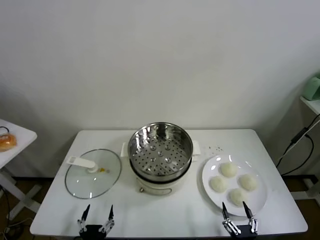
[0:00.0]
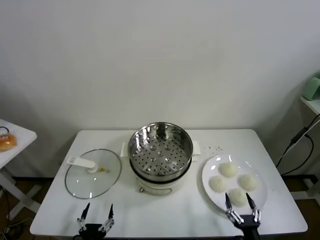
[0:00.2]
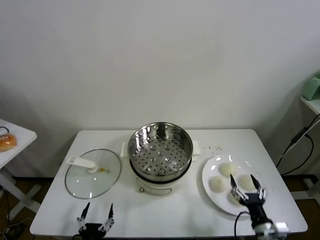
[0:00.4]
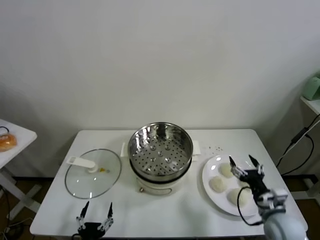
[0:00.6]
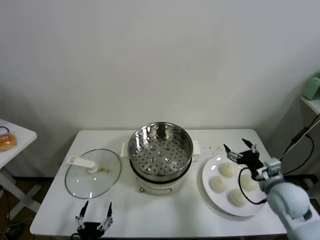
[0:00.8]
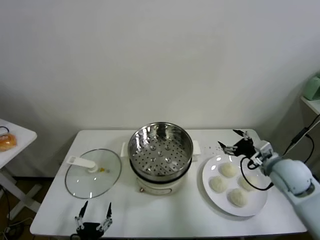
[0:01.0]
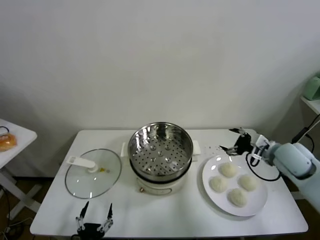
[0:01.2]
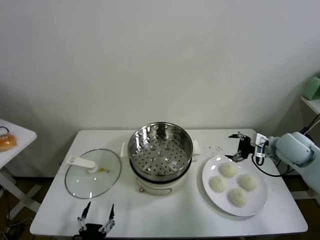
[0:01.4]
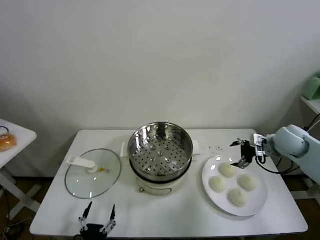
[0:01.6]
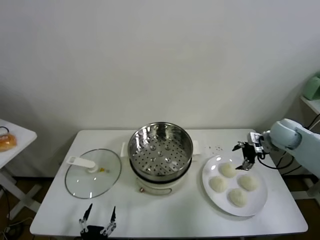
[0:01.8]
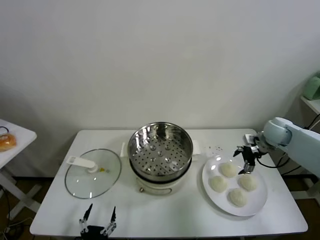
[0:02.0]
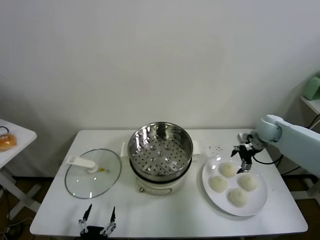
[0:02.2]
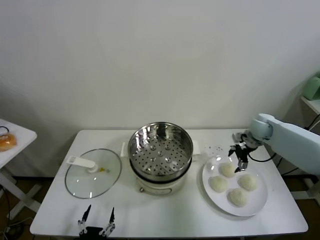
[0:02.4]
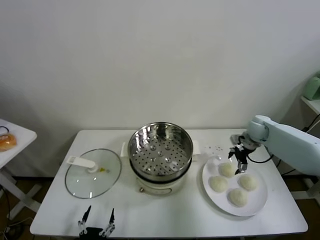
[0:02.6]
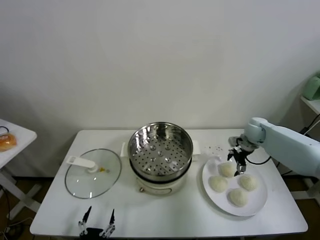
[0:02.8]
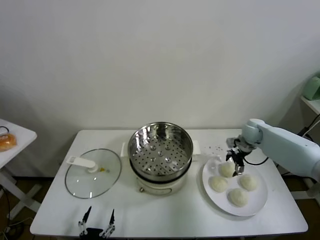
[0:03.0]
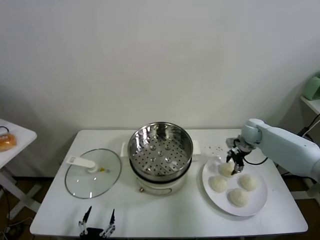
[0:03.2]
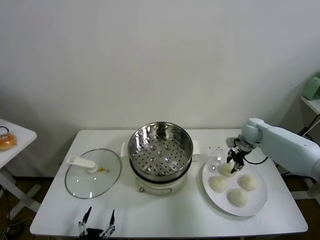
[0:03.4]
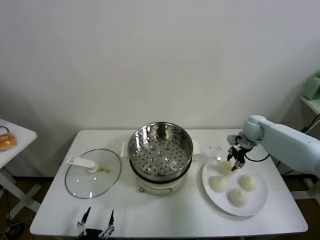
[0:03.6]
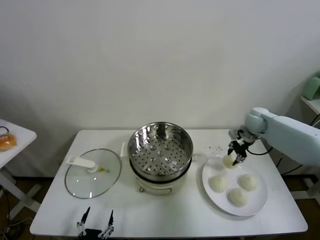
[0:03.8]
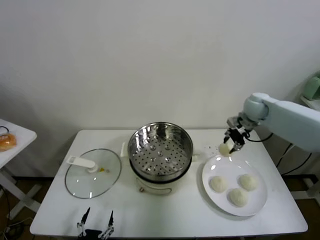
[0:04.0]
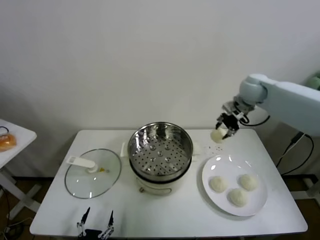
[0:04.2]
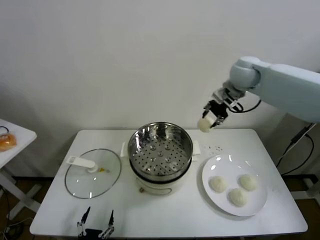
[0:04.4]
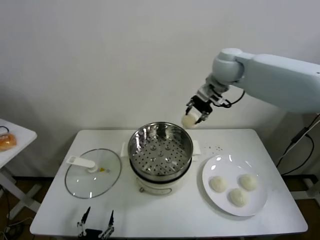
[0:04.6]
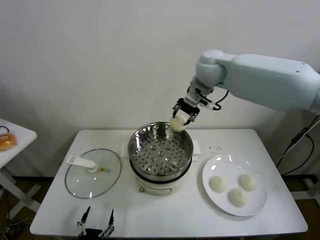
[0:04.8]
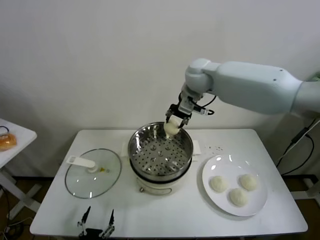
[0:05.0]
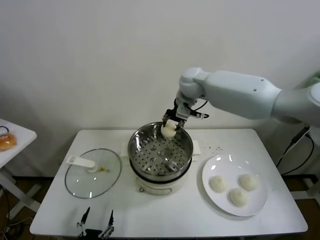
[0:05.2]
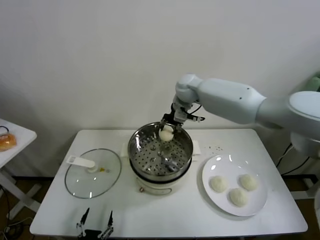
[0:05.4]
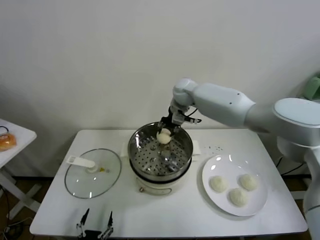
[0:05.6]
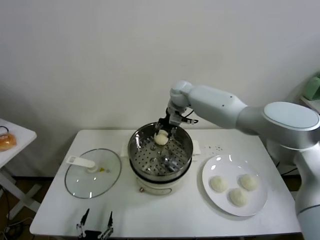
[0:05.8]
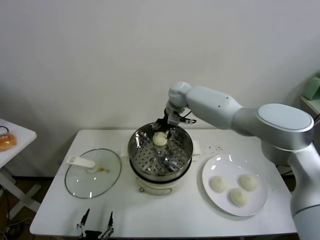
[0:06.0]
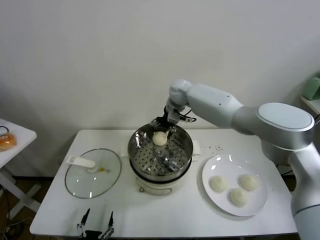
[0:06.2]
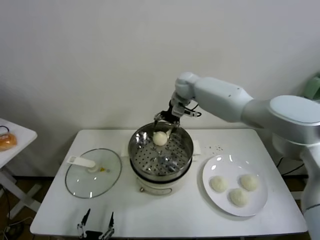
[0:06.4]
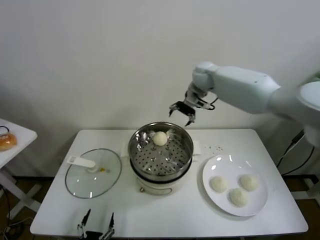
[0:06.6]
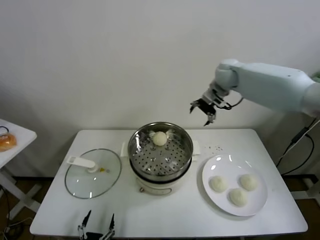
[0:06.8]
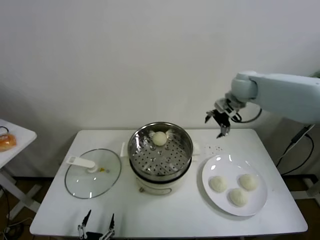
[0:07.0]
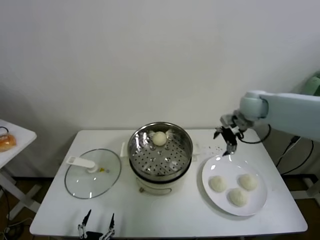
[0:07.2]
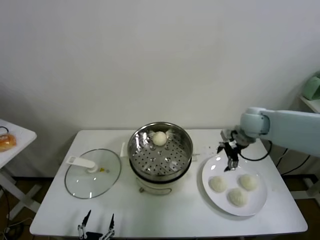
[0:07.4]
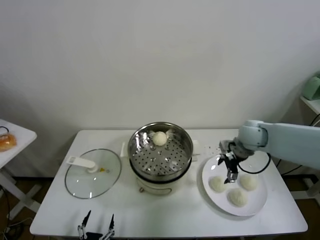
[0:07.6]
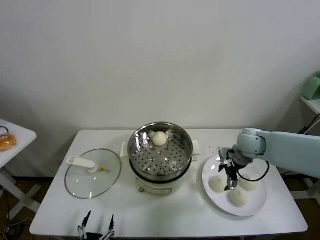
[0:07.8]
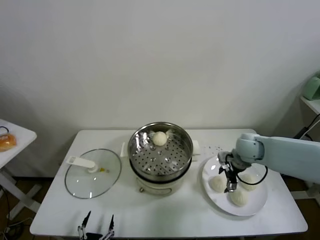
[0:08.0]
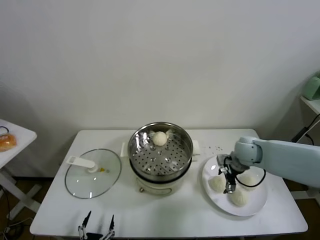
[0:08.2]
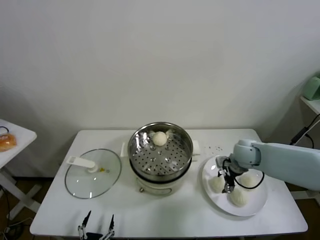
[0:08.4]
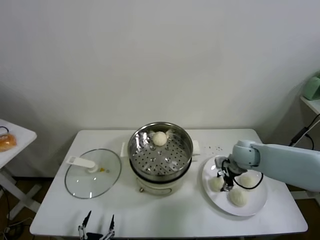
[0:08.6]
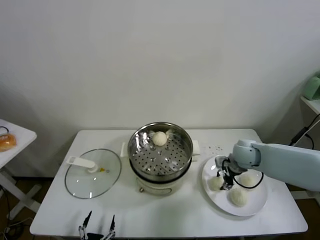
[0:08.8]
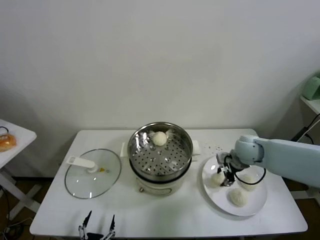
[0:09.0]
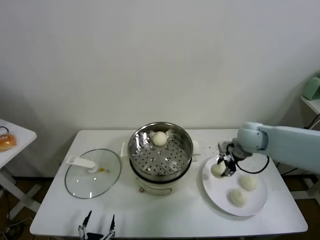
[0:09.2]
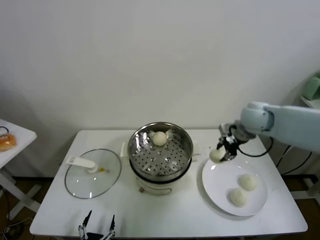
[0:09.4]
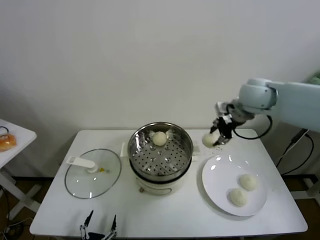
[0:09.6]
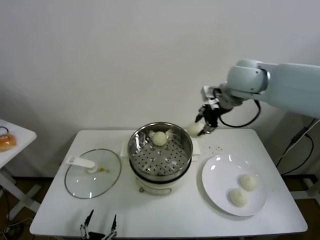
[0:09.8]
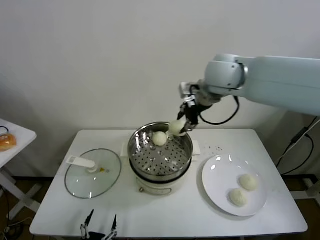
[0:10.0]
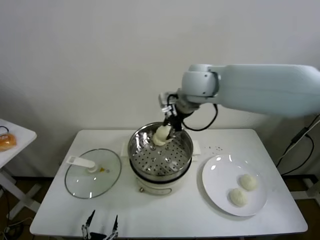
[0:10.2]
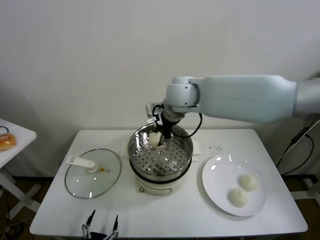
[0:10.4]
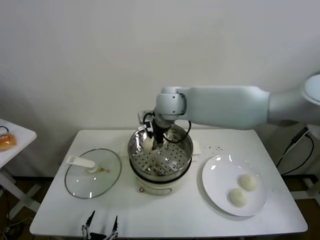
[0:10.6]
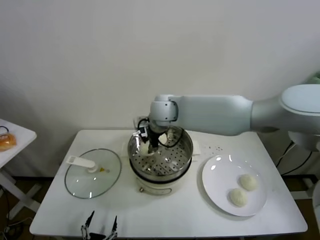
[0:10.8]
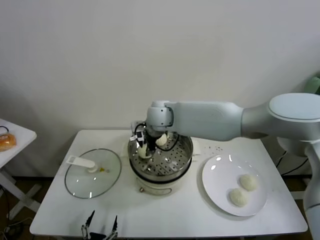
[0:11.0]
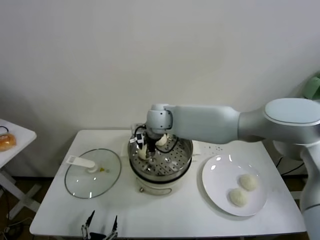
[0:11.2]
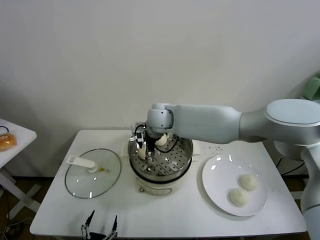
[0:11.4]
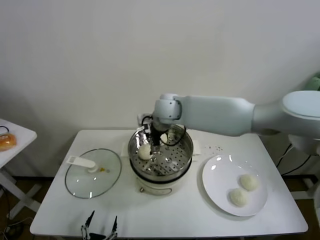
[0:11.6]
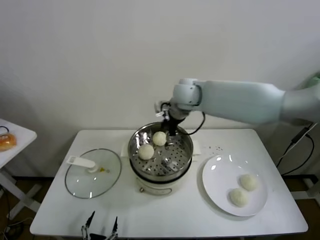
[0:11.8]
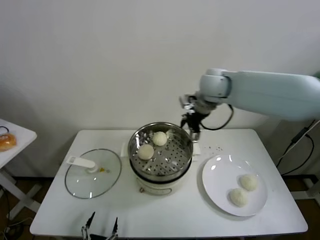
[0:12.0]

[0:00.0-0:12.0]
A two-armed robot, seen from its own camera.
Task of the whole recording: take steamed baozi put them in steamer.
Step, 0:00.0 to 0:03.2: Grasp the baozi in the plate with right gripper.
Step, 0:03.4 to 0:06.2: Place the baozi on the steamer with right gripper.
Step, 0:06.4 to 0:08.6: Grasp the baozi in the plate with right gripper.
Step, 0:08.8 to 0:11.4: Place the baozi on the steamer with right gripper.
0:01.6 to 0:03.0: The right gripper goes approximately 10 cm forward and downward.
0:03.0 to 0:04.4: The right gripper shifts about 30 cm upward and to the left, and closes up.
0:04.4 to 0:06.0: The right gripper travels to the left, downward and forward by approximately 20 cm, and opens.
0:06.0 to 0:07.6: The right gripper moves to the right and backward, roughly 30 cm.
0:07.6 to 0:09.0: The right gripper closes its fingers.
0:09.0 to 0:10.4: The right gripper heads to the left and upward, covering some 30 cm.
0:10.4 to 0:12.0: The right gripper moves to the right, some 10 cm, and opens.

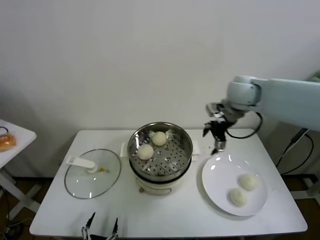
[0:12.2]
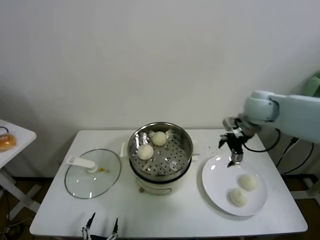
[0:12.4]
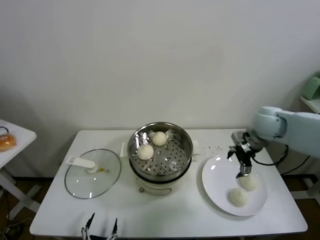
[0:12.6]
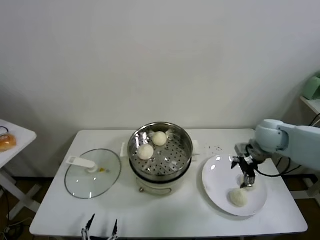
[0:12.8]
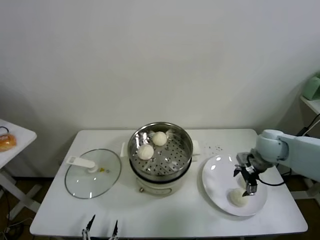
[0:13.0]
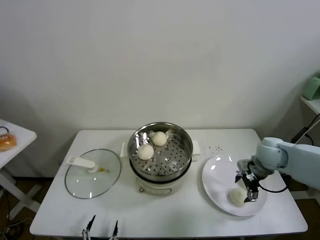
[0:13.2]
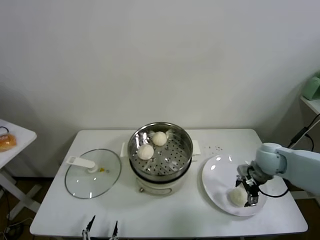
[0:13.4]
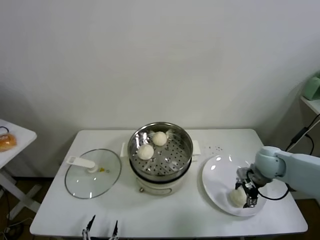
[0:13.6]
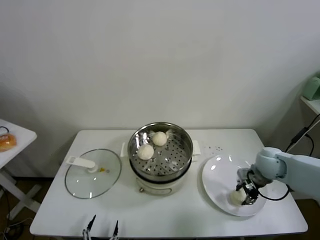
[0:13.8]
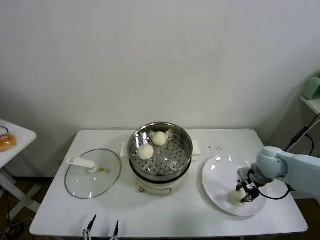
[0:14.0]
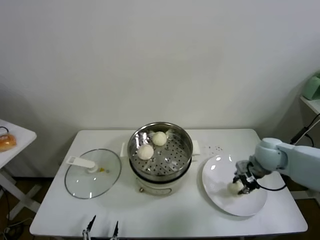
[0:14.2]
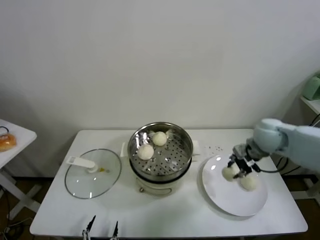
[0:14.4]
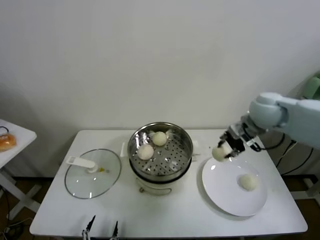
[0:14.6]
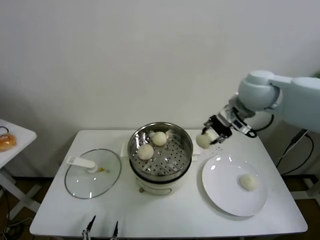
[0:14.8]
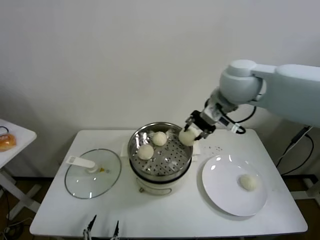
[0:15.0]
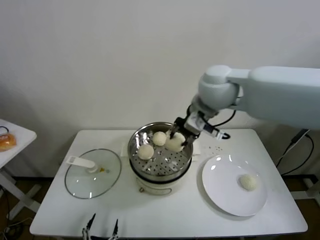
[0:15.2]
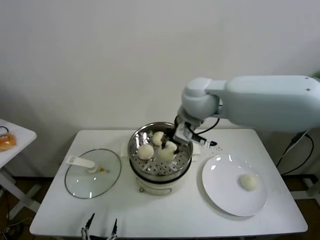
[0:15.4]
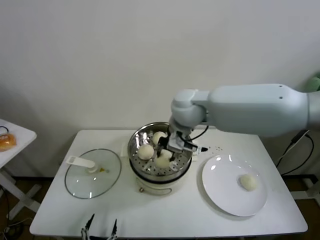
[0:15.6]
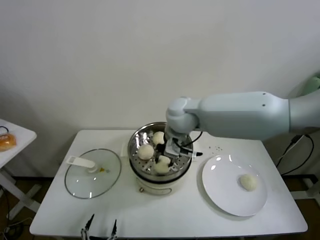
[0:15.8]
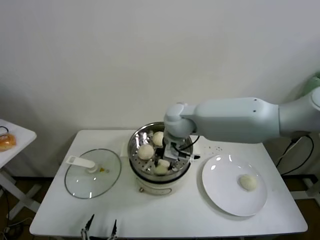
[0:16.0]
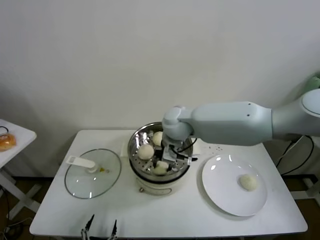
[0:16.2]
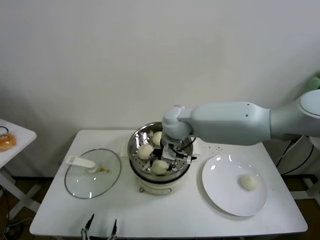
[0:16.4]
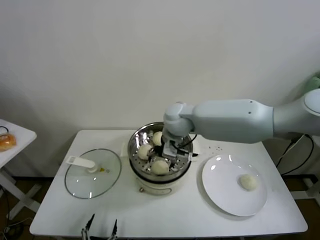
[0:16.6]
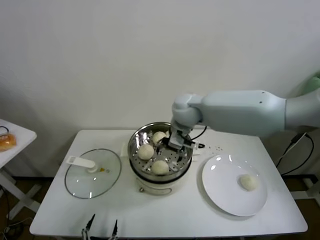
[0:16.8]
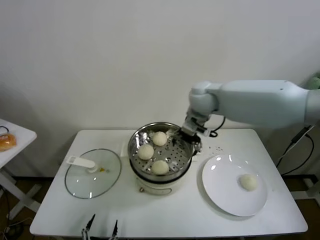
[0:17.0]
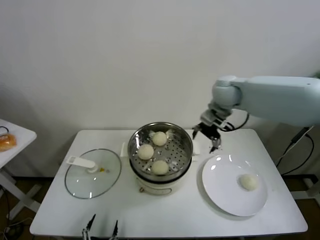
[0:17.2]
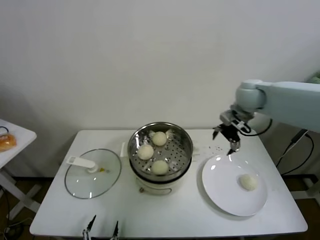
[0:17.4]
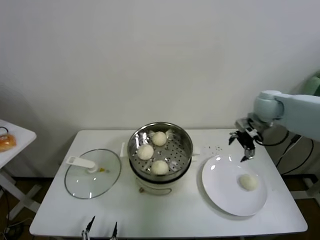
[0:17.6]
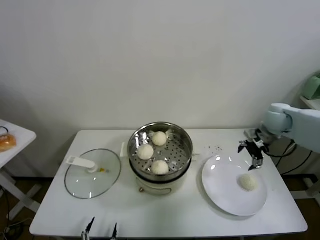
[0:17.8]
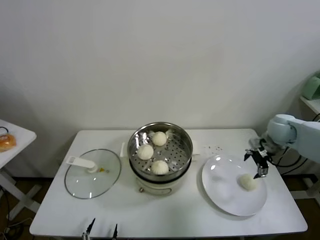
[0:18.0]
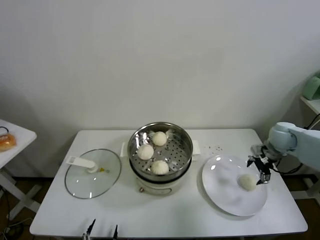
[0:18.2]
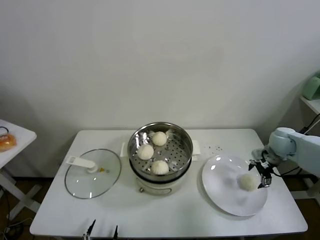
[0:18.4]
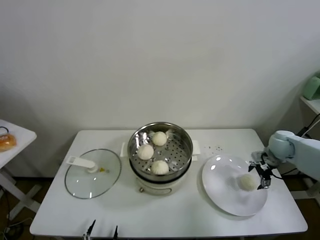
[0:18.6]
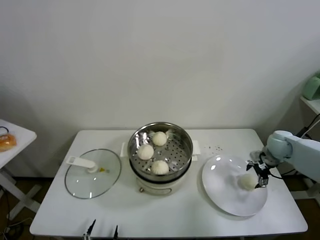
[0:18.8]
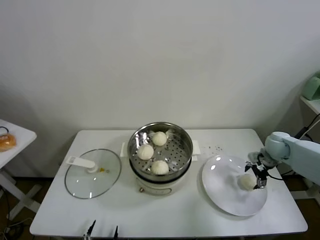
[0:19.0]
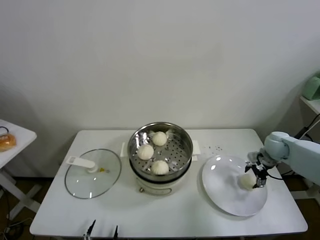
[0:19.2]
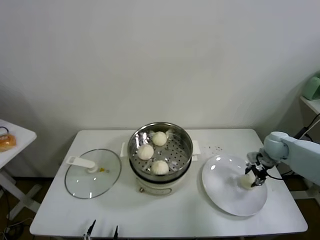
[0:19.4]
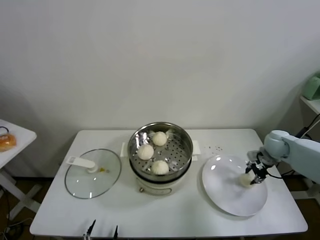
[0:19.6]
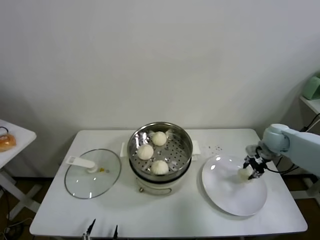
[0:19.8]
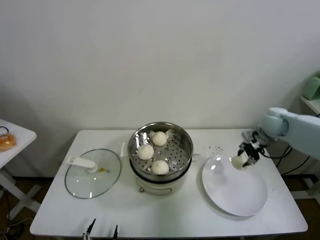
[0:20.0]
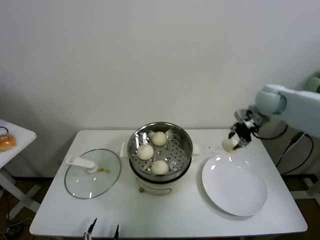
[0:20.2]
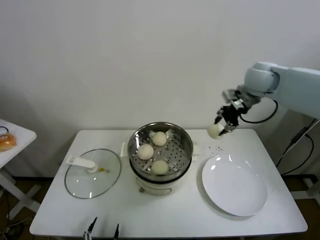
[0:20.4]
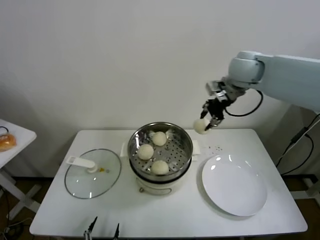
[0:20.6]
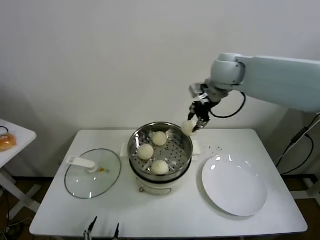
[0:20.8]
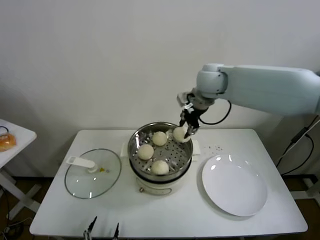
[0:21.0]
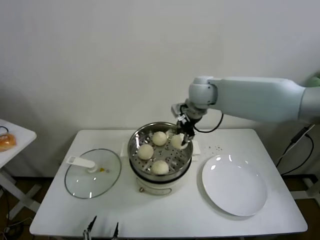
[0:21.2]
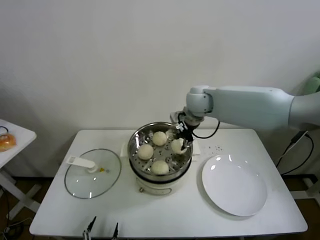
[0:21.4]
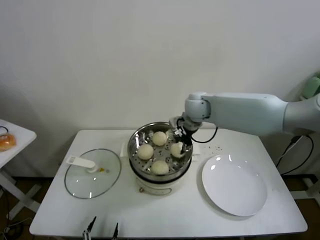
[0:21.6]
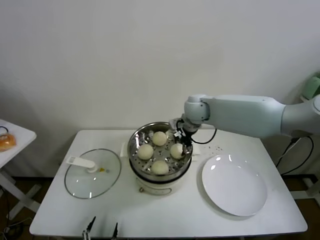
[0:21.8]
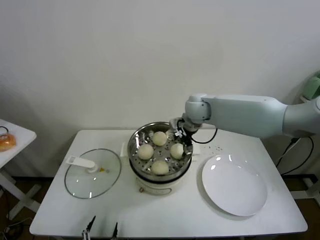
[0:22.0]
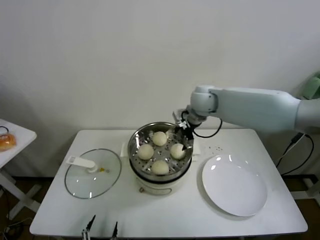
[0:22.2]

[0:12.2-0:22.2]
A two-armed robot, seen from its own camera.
Task of the whole recording: take steamed baozi put them in steamer.
Step, 0:12.2 to 0:13.8: Grasp the baozi in the plate with right gripper.
Step, 0:14.0 to 0:16.6: Place the baozi on the steamer with right gripper.
Step, 0:16.8 to 0:19.4: Grasp the baozi in the plate with right gripper.
Step, 0:19.6 to 0:22.0: Place the baozi on the steamer with right gripper.
0:12.2 to 0:13.6: The right gripper heads downward, to the right and backward, covering some 25 cm.
0:13.6 to 0:15.0: The right gripper travels upward and to the left by roughly 35 cm, and closes.
0:15.0 to 0:16.4: The right gripper travels downward and to the left by about 20 cm, and opens.
0:16.4 to 0:18.0: The right gripper is displaced to the right by roughly 35 cm, and opens.
0:18.0 to 0:19.4: The right gripper heads downward, covering about 10 cm, and closes up.
0:19.4 to 0:20.8: The right gripper travels upward and to the left by some 35 cm, and closes up.
0:20.8 to 0:22.2: The right gripper heads downward and to the left, covering approximately 15 cm, and opens up.
